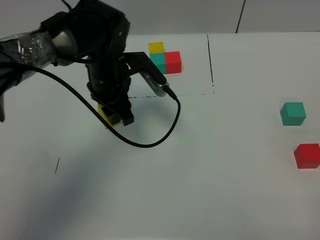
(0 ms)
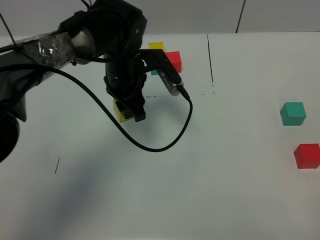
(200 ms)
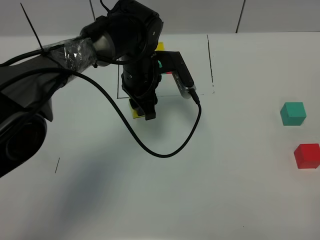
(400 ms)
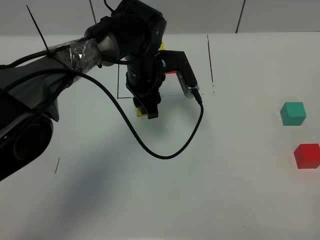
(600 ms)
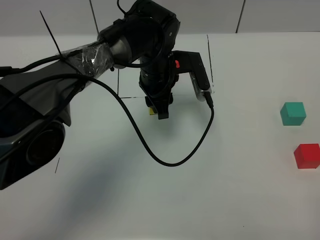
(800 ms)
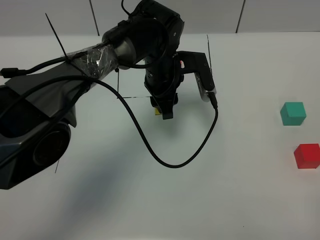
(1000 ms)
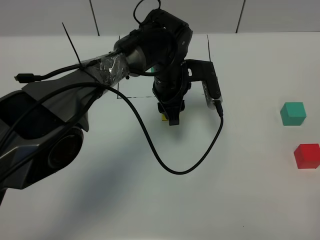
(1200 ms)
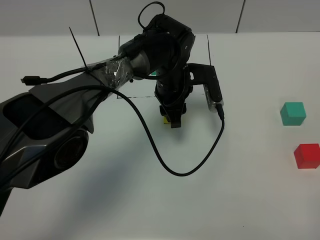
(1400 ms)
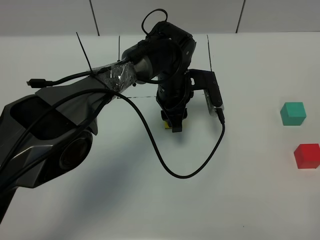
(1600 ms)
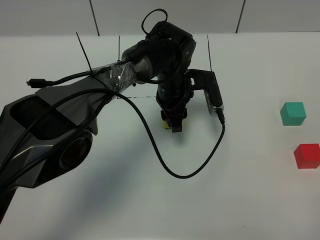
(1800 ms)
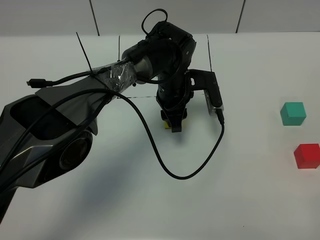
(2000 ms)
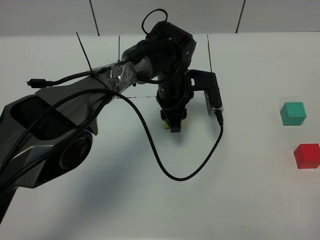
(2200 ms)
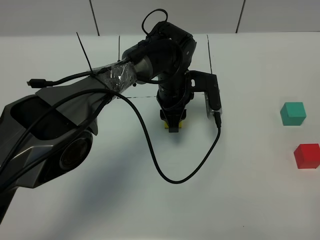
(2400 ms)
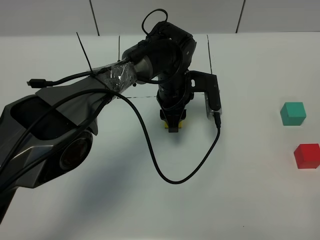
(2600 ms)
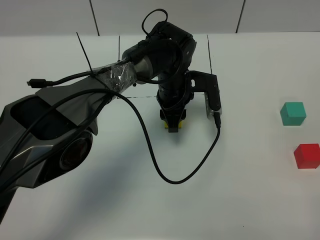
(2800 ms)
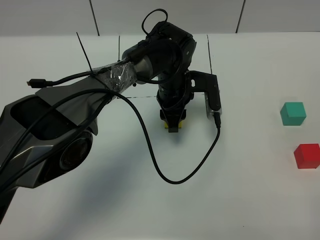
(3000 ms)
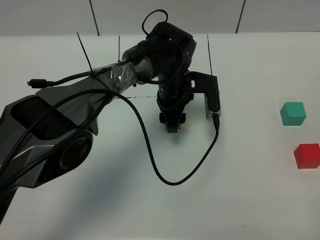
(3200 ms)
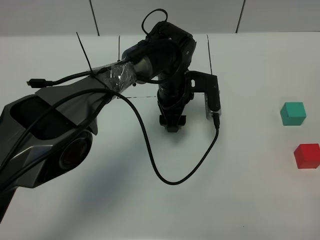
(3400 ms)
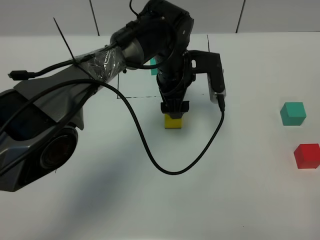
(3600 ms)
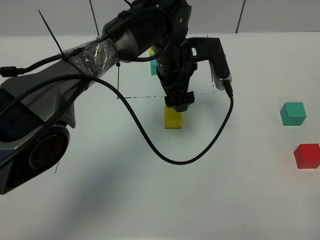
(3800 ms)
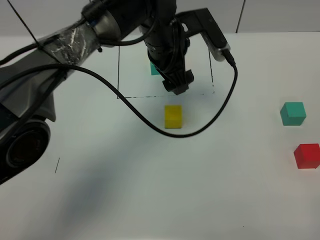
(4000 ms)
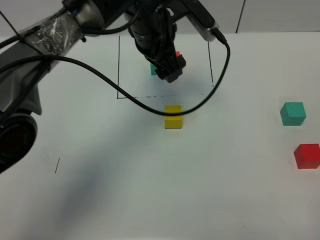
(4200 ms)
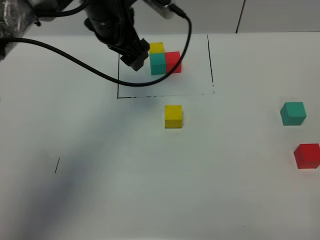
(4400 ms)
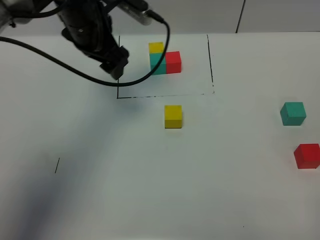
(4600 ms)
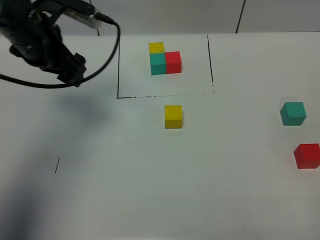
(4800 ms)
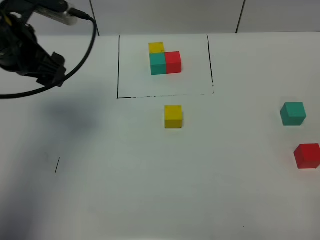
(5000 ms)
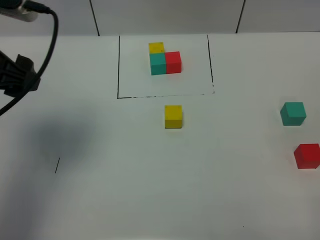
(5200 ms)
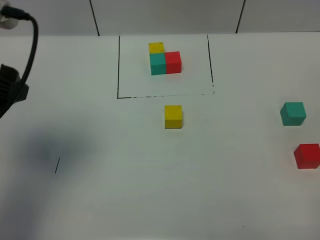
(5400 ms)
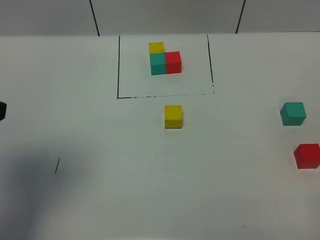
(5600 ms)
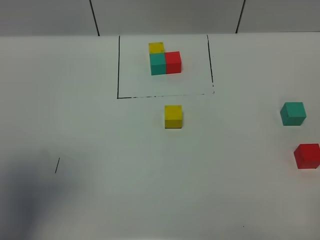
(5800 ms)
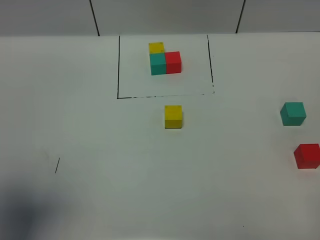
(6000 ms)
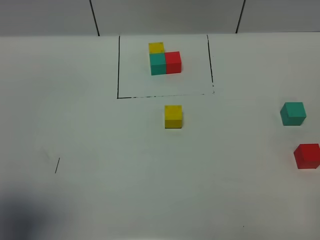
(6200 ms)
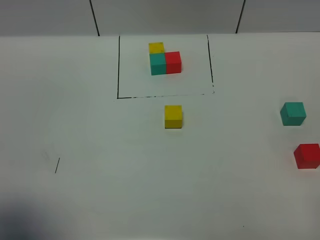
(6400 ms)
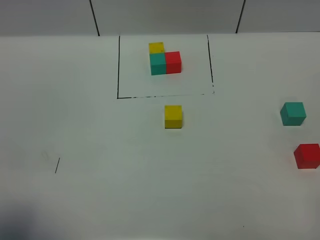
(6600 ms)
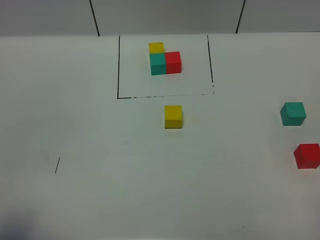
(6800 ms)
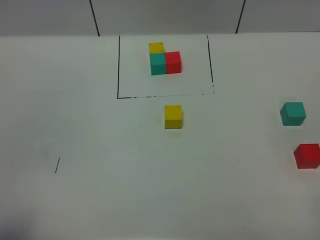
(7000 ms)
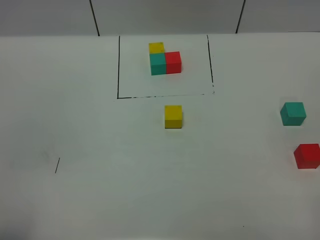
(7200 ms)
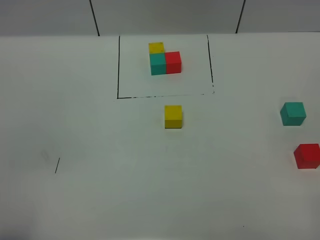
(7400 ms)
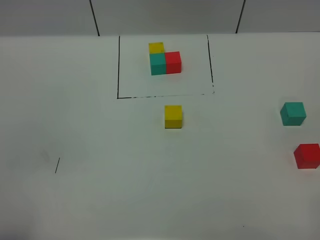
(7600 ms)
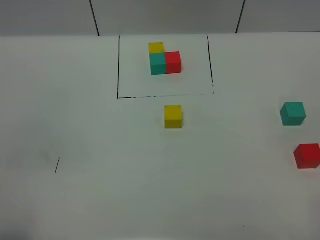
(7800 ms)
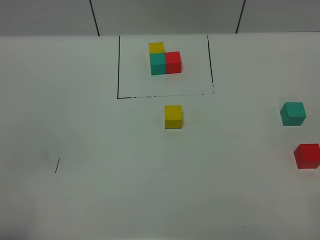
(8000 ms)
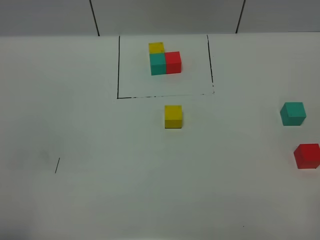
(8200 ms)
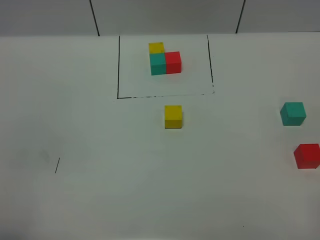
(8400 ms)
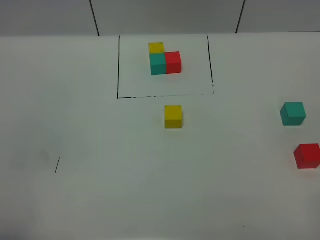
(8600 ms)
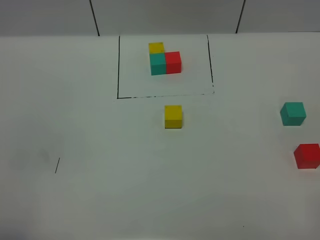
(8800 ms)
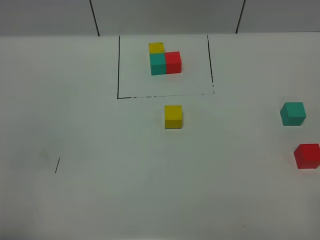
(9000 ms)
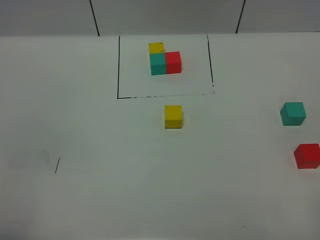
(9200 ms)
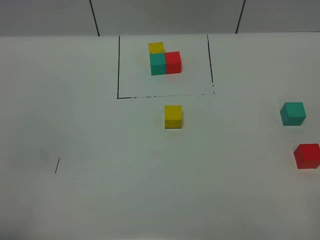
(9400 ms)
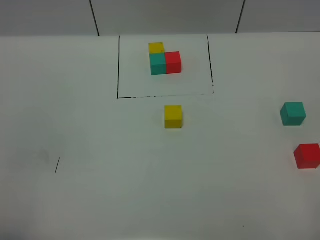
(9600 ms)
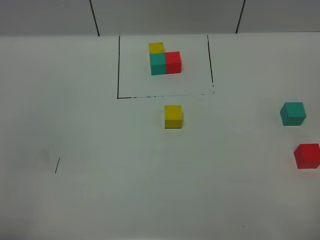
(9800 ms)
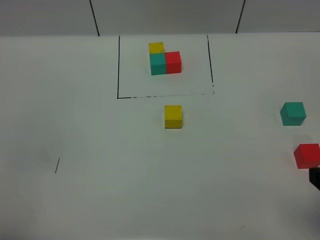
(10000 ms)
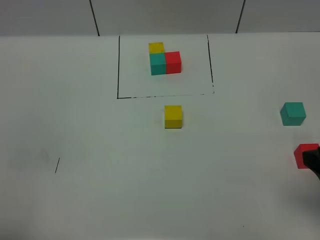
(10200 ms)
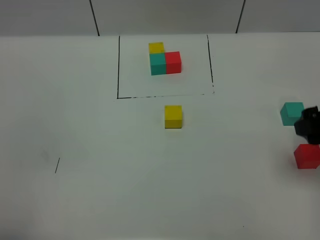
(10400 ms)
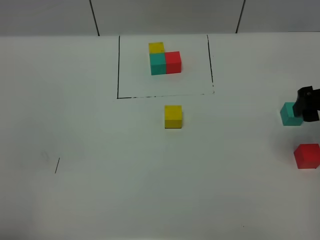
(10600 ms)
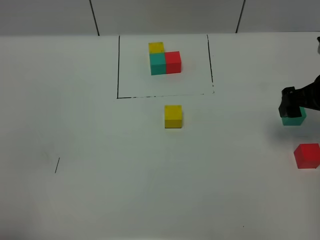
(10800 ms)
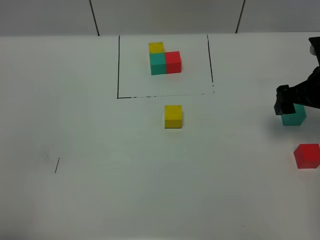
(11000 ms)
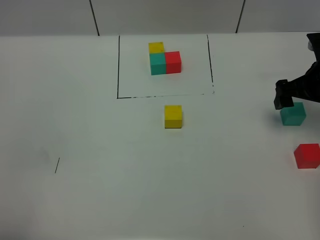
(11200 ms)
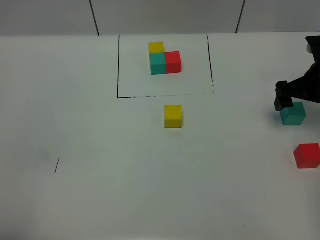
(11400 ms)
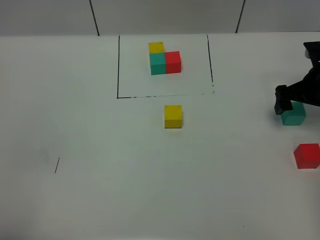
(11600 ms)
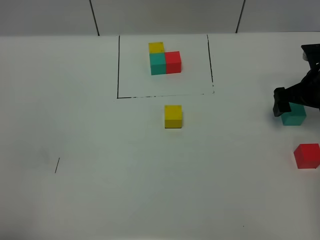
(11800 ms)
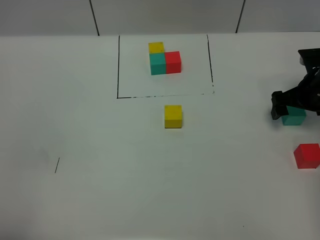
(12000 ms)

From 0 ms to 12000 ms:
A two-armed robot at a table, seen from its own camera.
Task of the whole recording: According to the building block template in front, assemble the scattered blocks together.
Step, from 0 ms to 3000 ms: Put the yellow build block in the center of the table.
From 0 ms to 1600 ms: The left gripper shifts approximately 15 cm to the right and downward.
From 1600 ms to 3000 ms: There are only small adjustments of the grippers.
From 3000 ms to 4400 ms: The left gripper is displaced upward and to the left by roughly 20 cm, and opens its fingers.
From 4400 ms to 6000 ms: The left gripper travels backward and to the left by some 35 cm.
From 6000 ms to 7600 ms: The left gripper heads backward and downward, covering roughly 15 cm.
From 9000 ms to 10400 ms: The right gripper travels forward by roughly 20 cm.
From 10400 ms to 12000 ms: The right gripper is displaced forward and downward by roughly 20 cm.

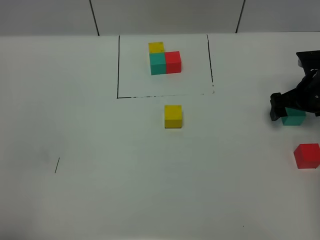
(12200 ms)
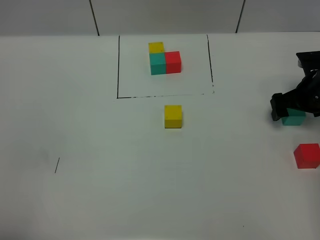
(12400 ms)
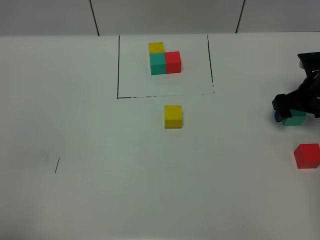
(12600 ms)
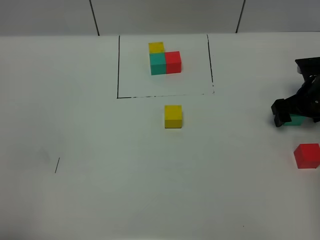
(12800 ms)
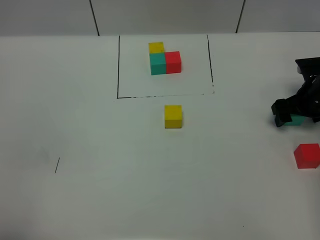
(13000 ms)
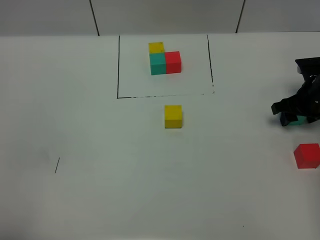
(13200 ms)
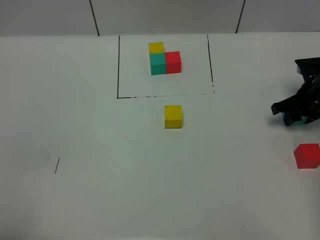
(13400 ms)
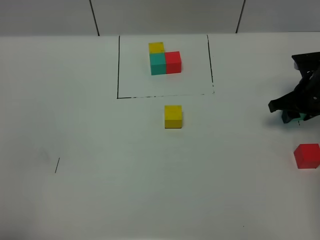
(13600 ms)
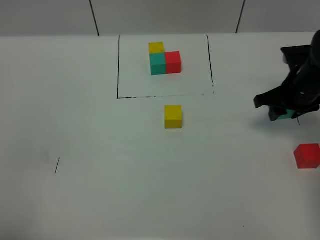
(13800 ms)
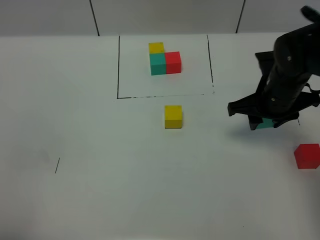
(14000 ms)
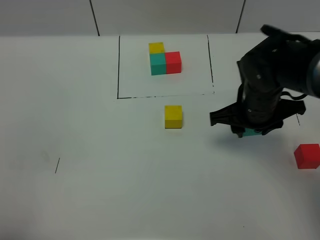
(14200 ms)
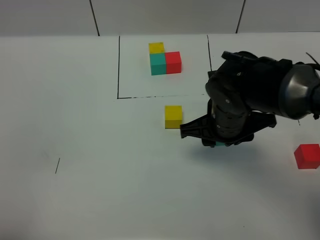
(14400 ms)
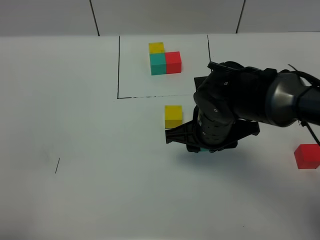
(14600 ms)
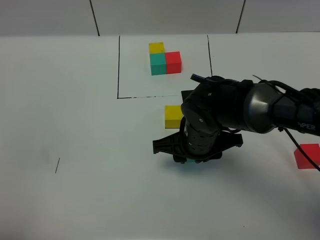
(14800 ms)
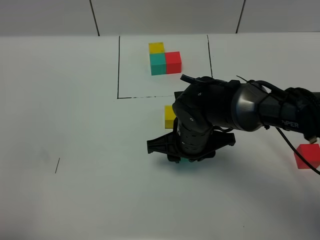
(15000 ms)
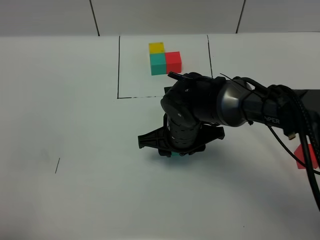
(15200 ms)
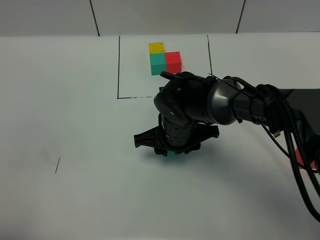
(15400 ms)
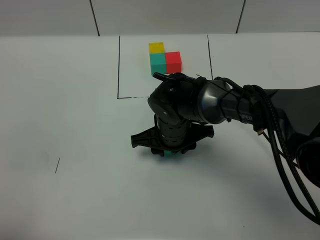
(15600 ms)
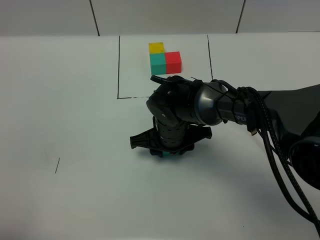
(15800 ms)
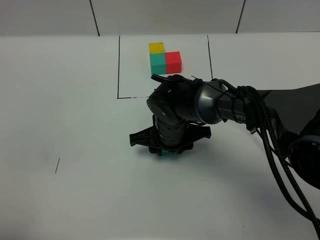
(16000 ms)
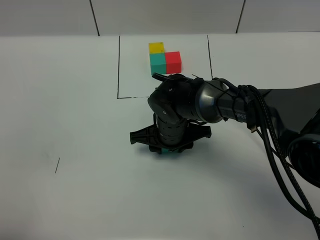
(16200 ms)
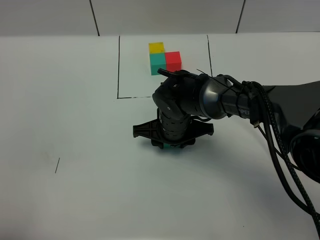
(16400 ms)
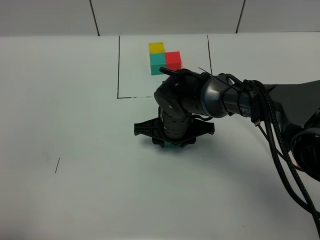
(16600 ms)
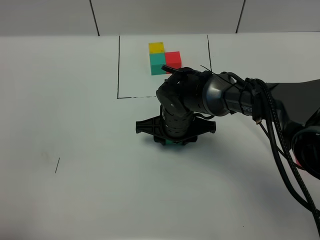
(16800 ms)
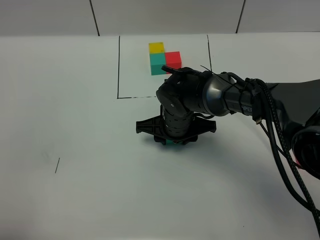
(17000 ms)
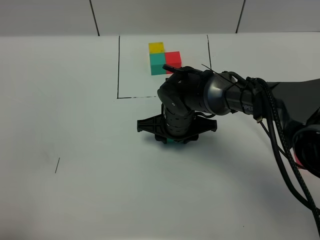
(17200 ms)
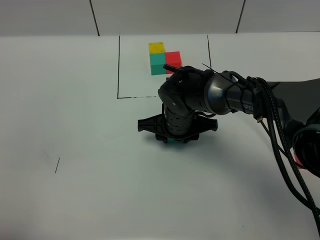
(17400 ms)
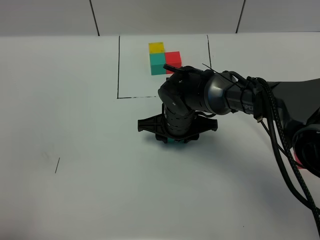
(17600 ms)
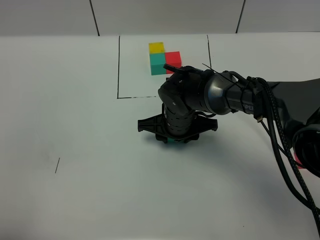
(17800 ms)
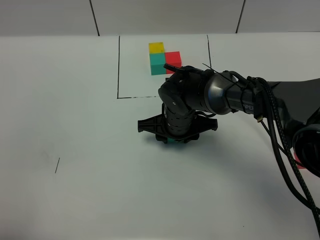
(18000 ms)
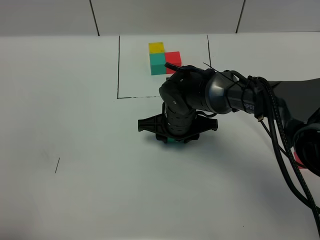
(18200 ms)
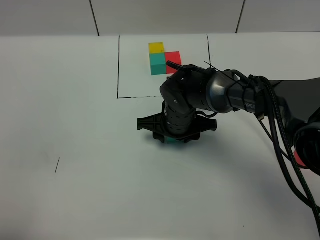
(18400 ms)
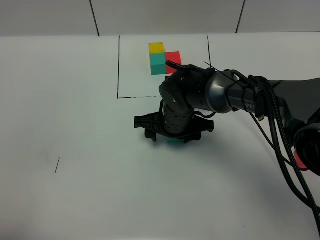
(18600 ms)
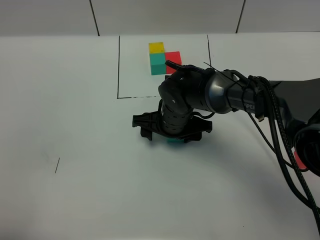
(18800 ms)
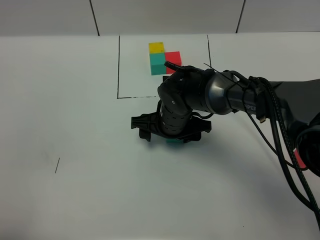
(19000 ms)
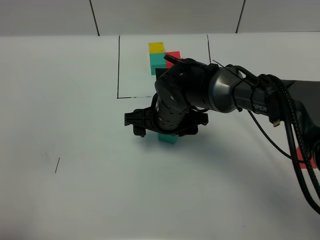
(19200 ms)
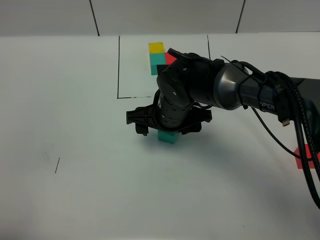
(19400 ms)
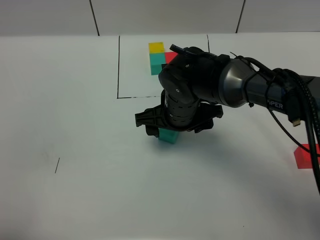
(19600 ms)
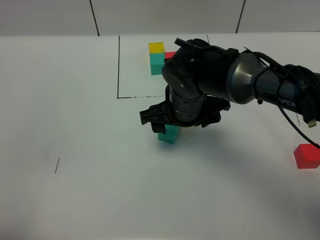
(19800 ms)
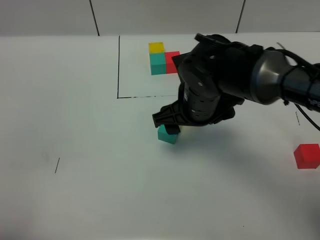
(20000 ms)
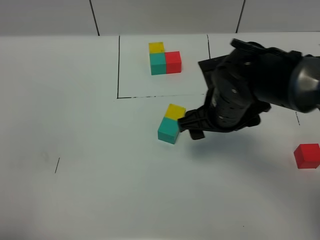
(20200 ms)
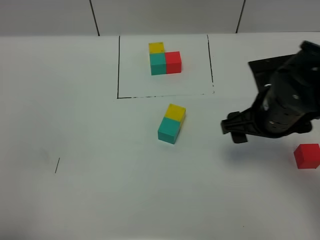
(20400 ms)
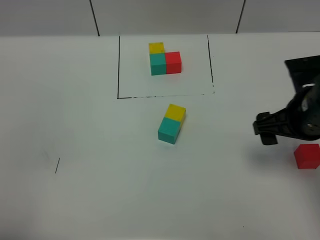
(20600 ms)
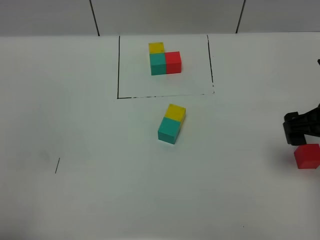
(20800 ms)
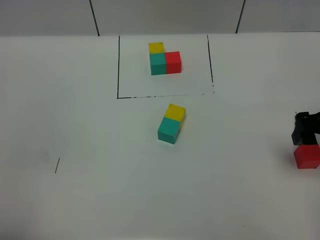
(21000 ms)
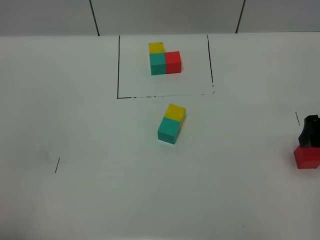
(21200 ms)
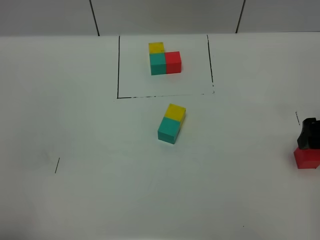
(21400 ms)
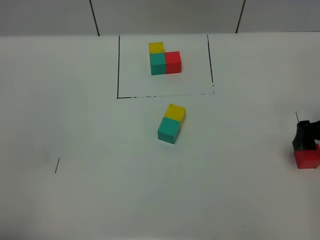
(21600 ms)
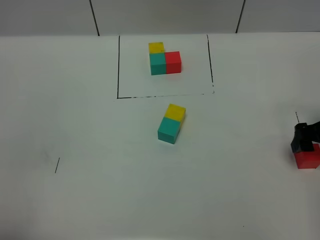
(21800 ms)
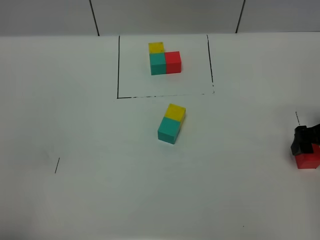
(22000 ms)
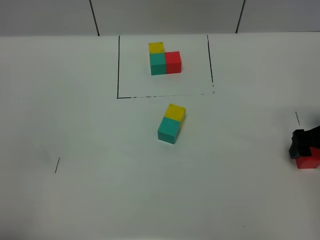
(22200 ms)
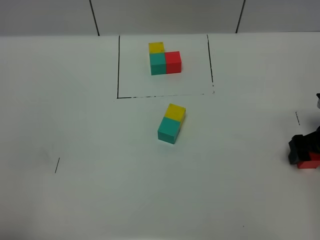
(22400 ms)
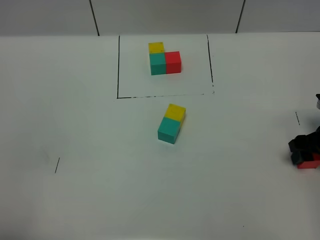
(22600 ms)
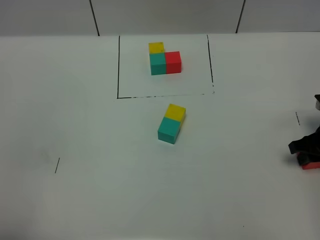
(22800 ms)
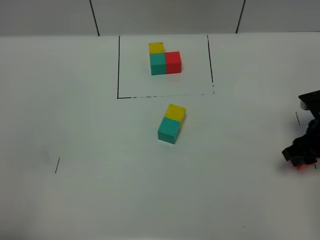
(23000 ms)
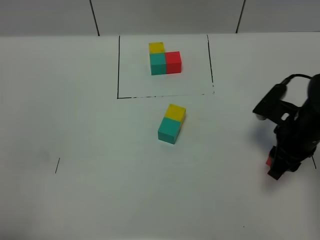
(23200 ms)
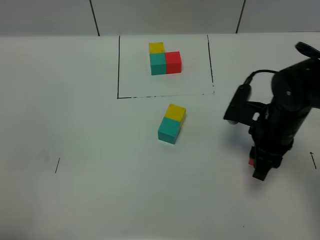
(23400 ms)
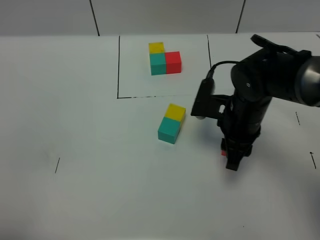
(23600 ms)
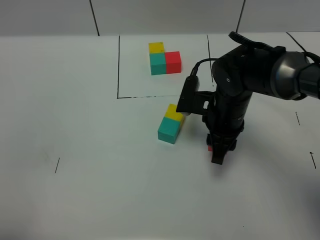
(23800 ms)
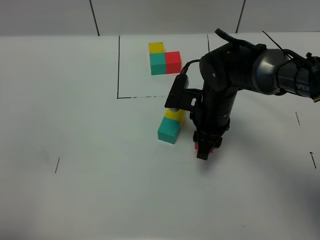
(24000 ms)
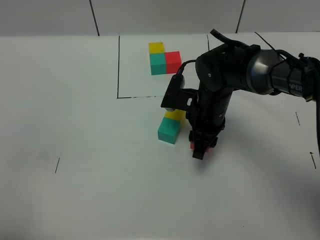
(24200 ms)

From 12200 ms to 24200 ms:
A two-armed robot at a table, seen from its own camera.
Task of the whole recording: According to the building block template in front, assemble the scattered blocks together.
Step, from 12200 ms to 18400 ms: Put the green build block on the behind of the yellow build block.
From 12200 ms to 13800 ms: The right gripper goes some 5 cm to the left, and closes its fingers.
From 13800 ms to 15200 ms: The right gripper travels to the left by some 25 cm.
From 15200 ms to 16600 ms: The grippers make only small movements.
From 16600 ms to 18200 ms: The two grippers keep their place.
From 18200 ms to 19800 ms: The right gripper heads upward, covering some 10 cm, and opens.
From 19800 ms to 21200 ms: The right gripper travels to the right by about 30 cm.
From 21200 ms to 22600 ms: The right gripper goes roughly 10 cm downward, and closes up.
From 22600 ms to 24200 ms: The right gripper goes about 25 cm to the left, and closes.
